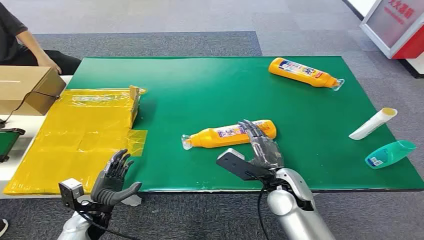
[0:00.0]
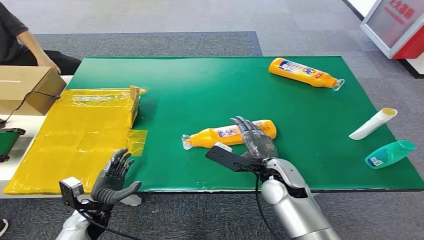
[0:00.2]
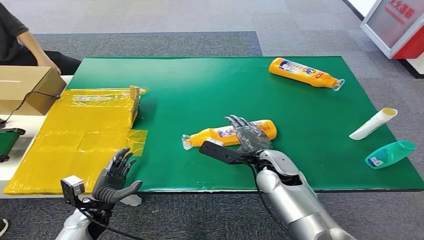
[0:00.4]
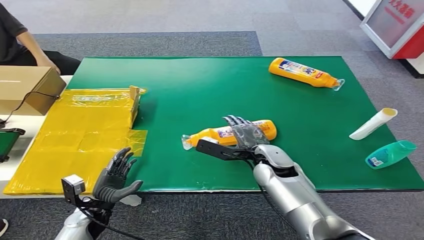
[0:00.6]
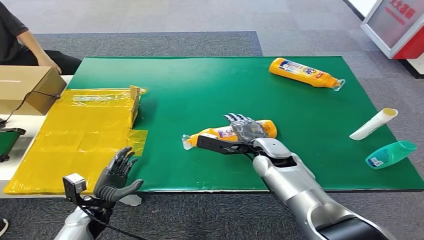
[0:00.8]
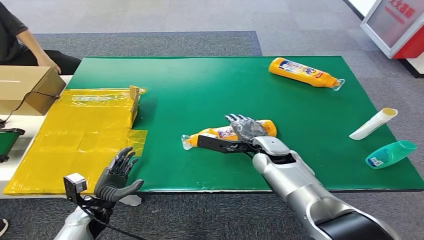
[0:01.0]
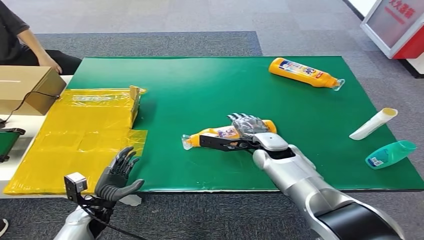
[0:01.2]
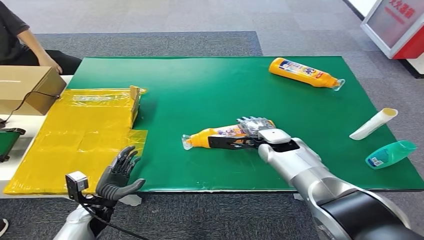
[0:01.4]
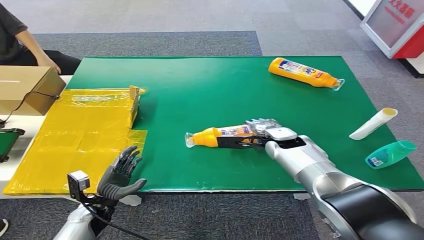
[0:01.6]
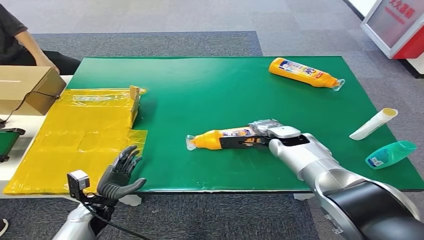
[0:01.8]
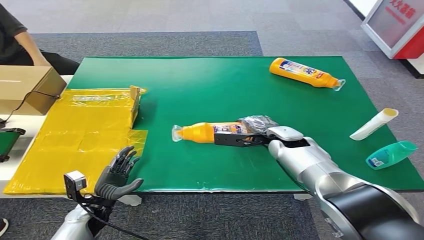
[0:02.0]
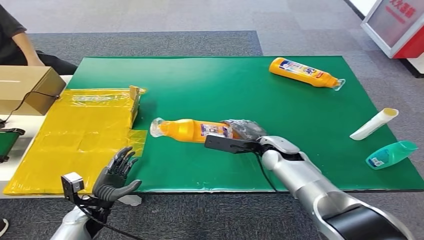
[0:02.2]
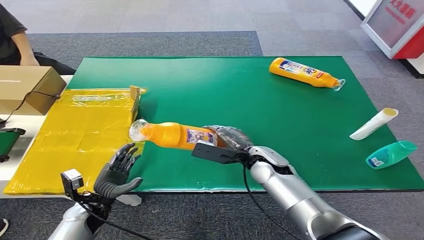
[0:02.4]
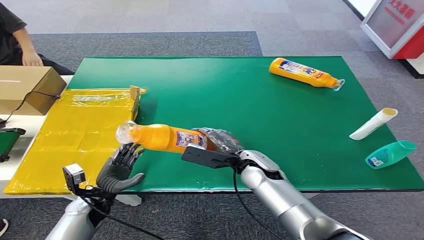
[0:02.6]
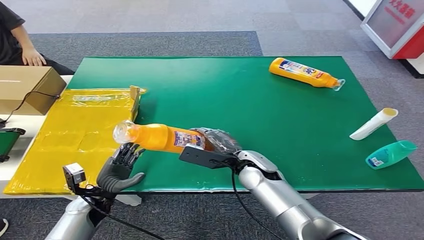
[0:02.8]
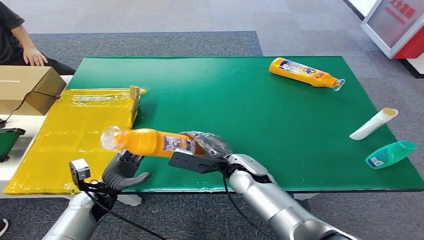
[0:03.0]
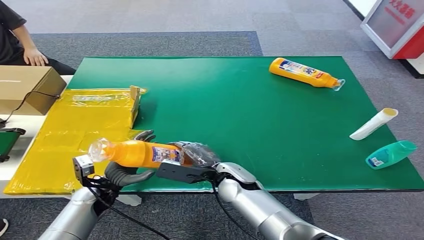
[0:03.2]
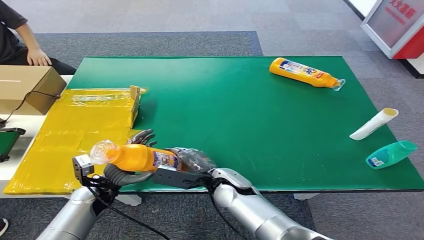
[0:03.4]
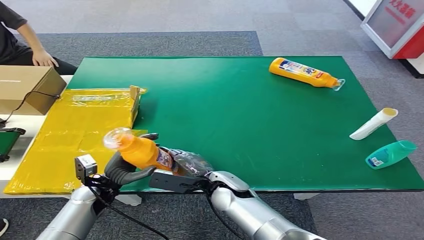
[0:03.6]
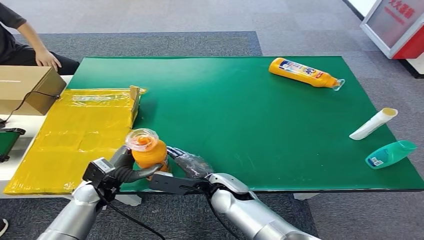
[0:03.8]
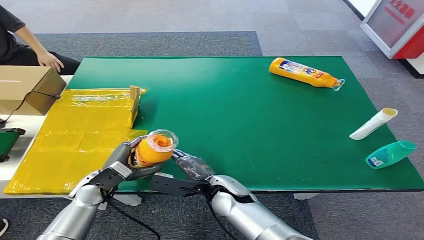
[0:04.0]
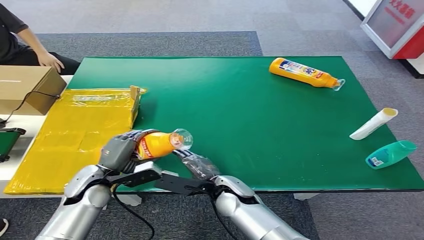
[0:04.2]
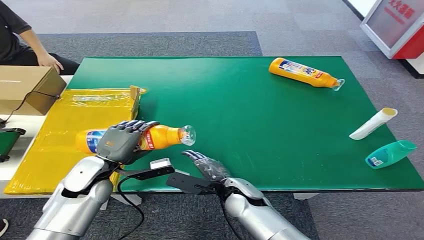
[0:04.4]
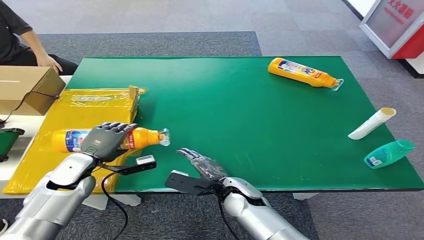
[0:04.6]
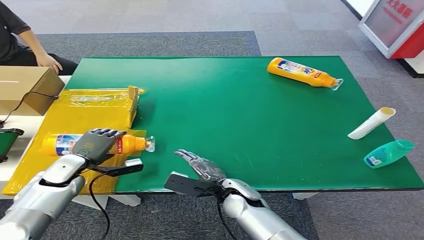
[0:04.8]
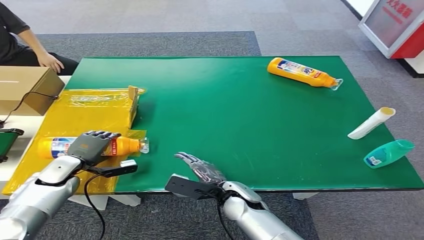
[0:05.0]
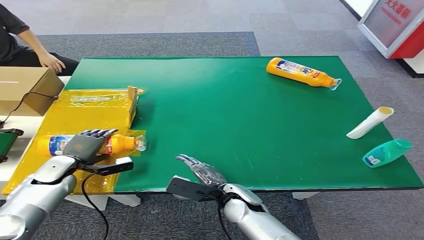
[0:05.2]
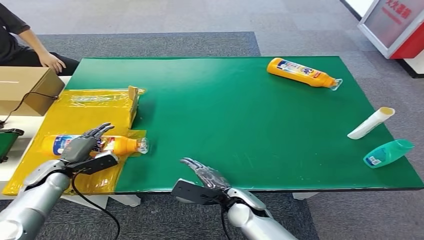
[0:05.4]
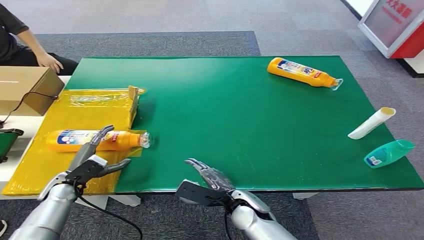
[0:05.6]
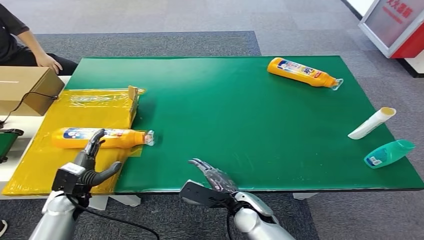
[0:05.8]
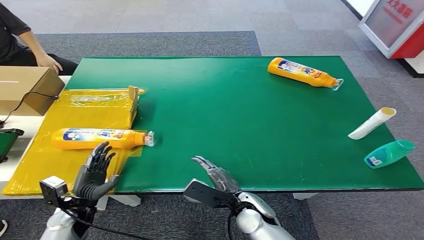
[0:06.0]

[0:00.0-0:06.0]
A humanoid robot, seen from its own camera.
Step, 0:00.0 to 0:02.8: Pick up the bottle from the table.
Step, 0:03.0 to 0:06.0: Turn the bottle to the front side.
0:03.0 to 0:04.4: The left hand shifts about 10 cm upward; the right hand goes some 5 cm backward.
0:04.4 to 0:06.0: The right hand moves about 5 cm; the left hand travels downward, backward and to the left by approximately 15 cm.
